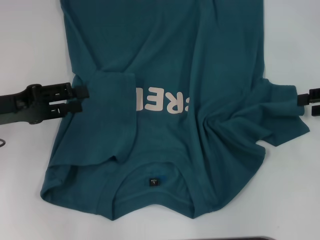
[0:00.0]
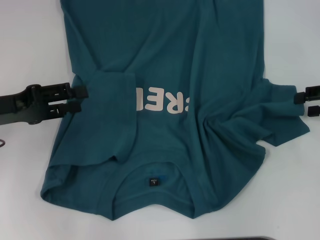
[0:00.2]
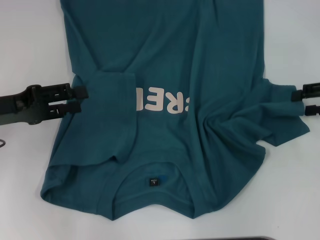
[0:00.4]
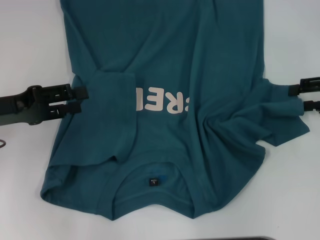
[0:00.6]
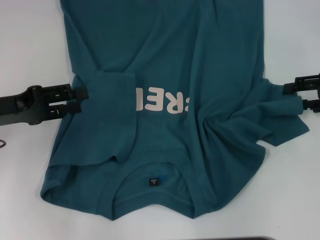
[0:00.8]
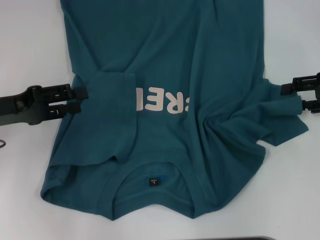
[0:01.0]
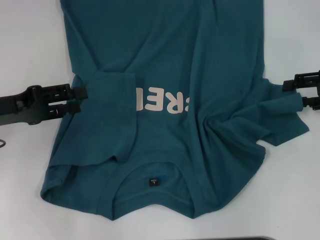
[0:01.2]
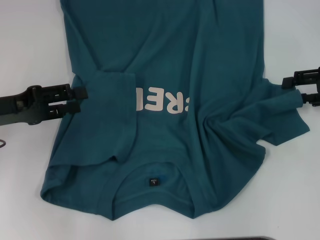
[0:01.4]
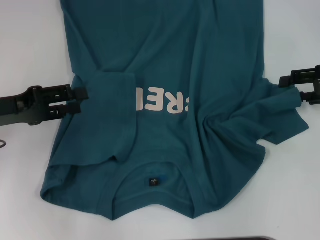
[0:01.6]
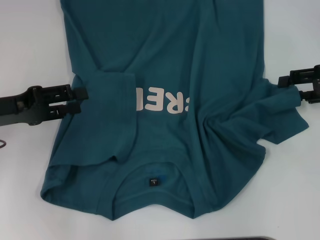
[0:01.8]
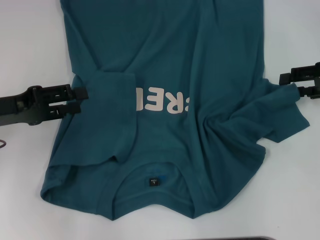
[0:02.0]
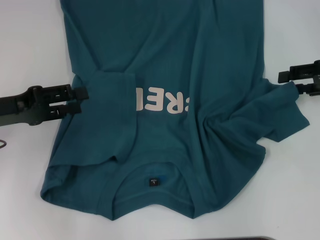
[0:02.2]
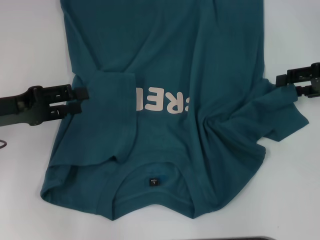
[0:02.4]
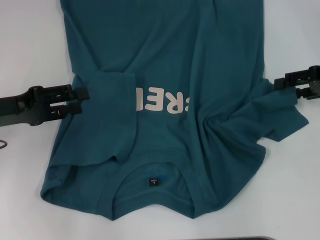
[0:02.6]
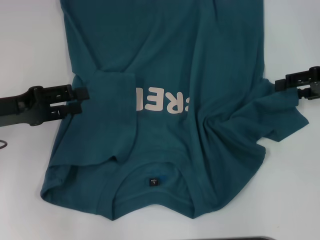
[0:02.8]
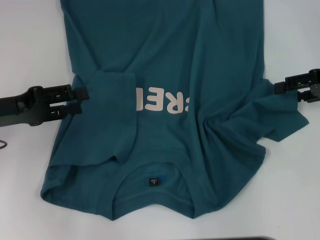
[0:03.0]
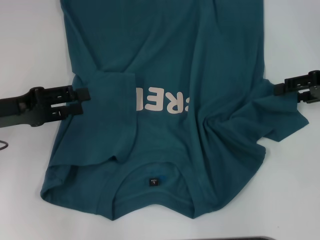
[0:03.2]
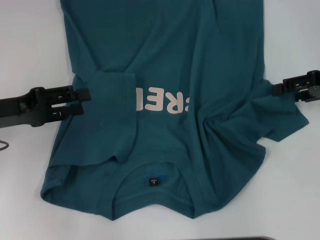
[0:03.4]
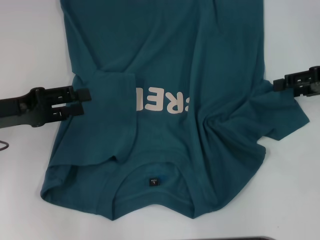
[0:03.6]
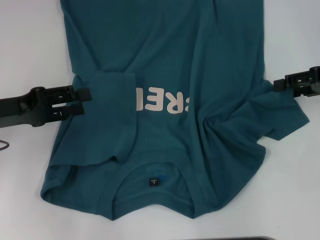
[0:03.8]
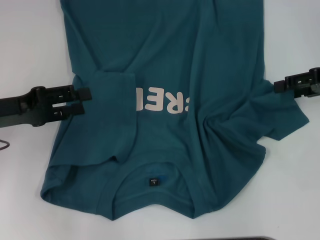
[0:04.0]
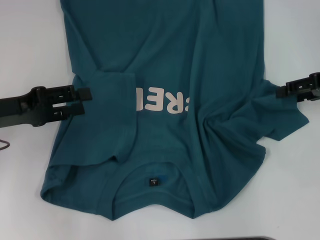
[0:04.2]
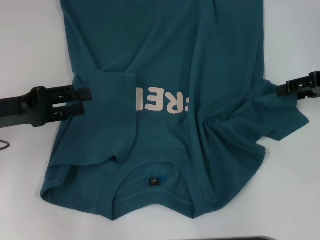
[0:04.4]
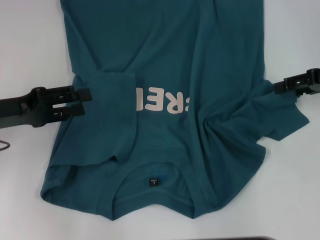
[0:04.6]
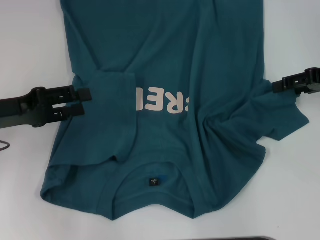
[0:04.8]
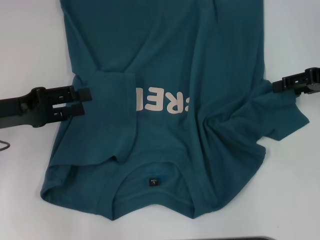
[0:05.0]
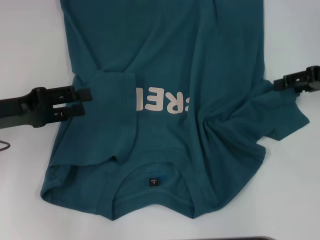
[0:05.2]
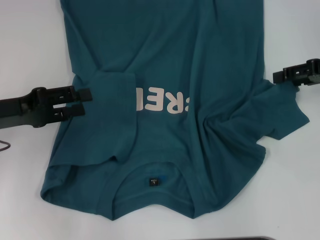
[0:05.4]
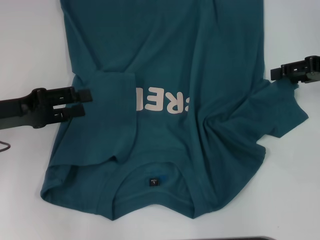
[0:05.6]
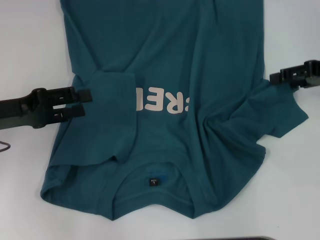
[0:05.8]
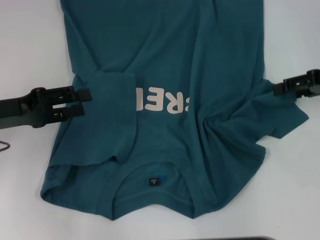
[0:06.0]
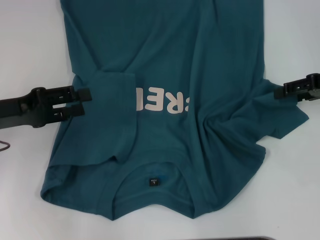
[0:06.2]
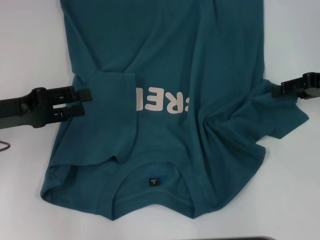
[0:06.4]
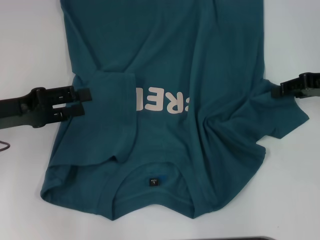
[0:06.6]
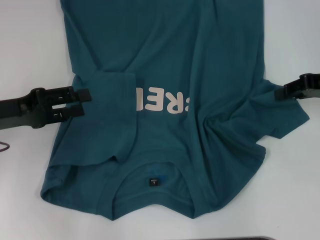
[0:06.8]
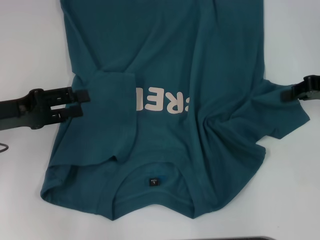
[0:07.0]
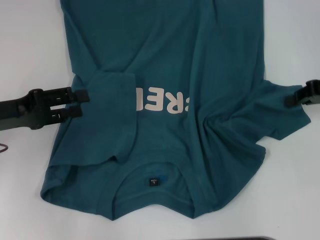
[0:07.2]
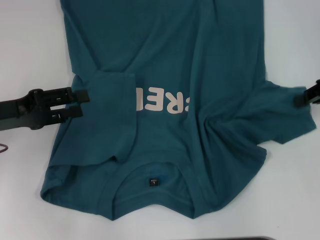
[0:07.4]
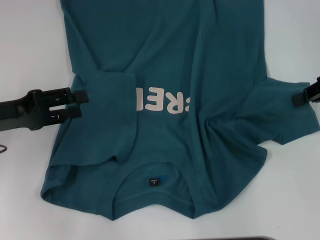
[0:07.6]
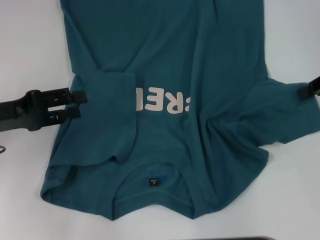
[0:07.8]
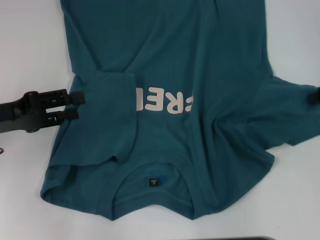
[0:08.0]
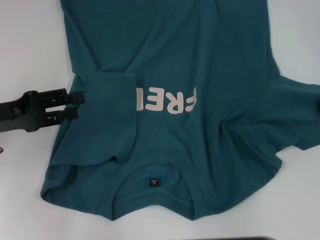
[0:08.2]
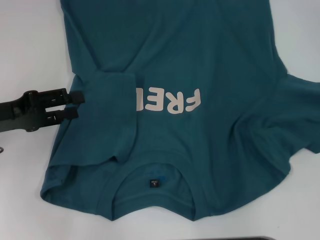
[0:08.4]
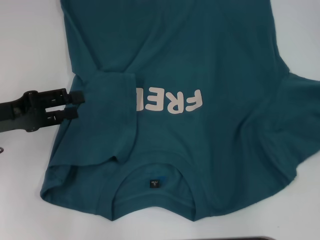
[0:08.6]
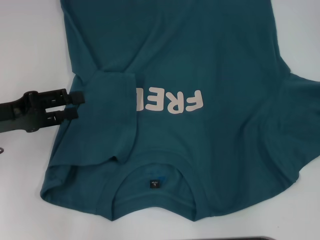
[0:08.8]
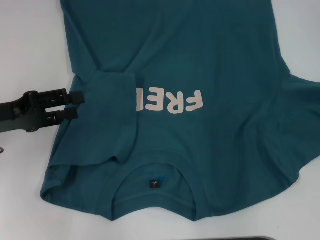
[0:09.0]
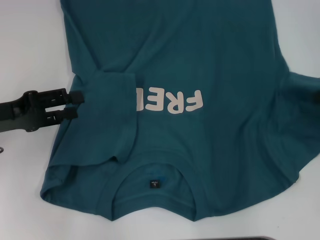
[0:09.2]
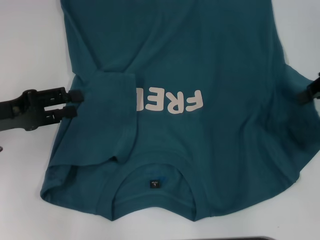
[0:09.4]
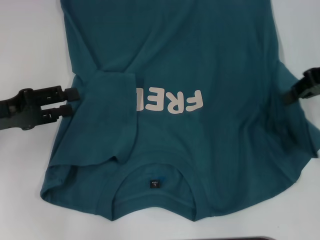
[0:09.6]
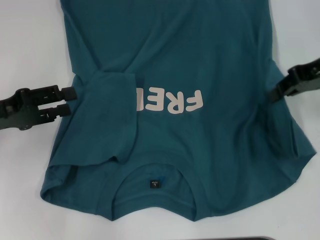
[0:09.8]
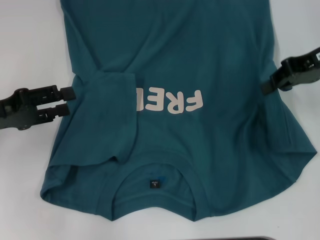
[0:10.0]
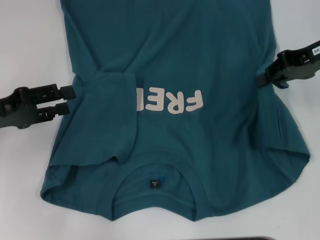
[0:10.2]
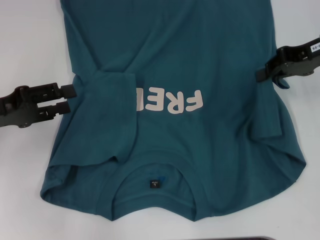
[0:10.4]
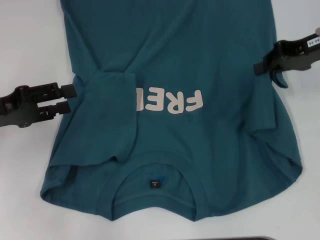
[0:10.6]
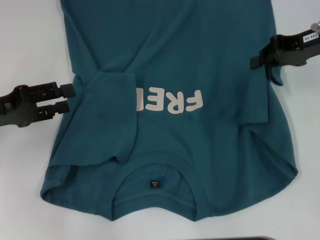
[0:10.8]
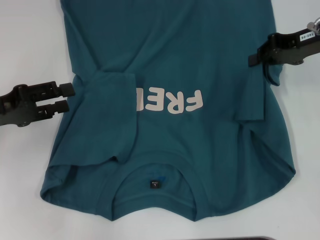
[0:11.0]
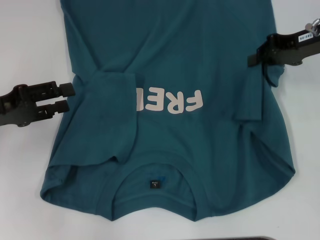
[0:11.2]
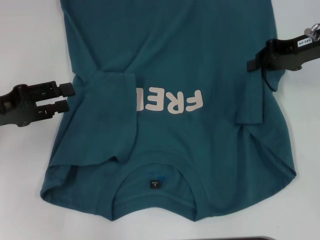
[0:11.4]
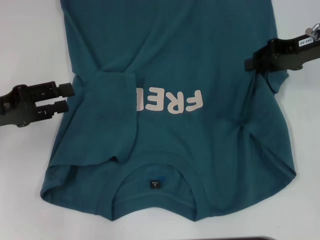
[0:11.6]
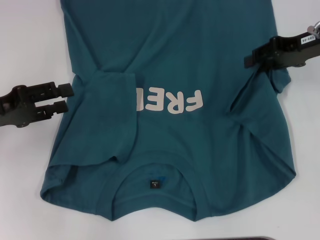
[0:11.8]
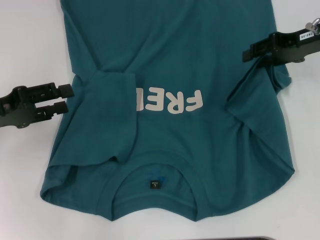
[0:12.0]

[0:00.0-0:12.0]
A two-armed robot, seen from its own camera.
0:00.0 to 0:04.4: There are only small adjustments of the grippers.
0:04.4 to 0:06.0: There are only small adjustments of the grippers.
0:06.0 to 0:07.6: The right gripper closes.
0:07.6 to 0:09.0: The grippers stay close to where they were, moving slightly.
0:09.0 to 0:10.4: The right gripper travels to the left by roughly 10 cm.
0:10.4 to 0:12.0: The right gripper opens.

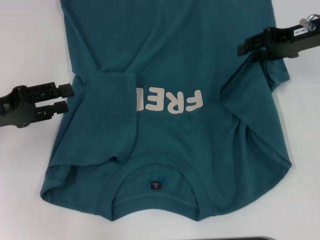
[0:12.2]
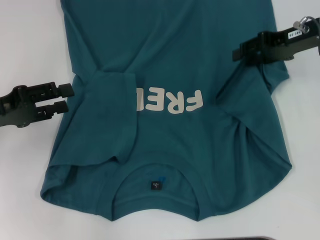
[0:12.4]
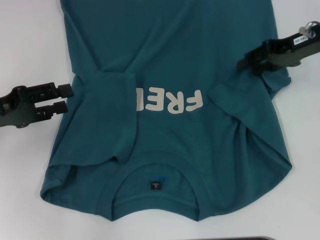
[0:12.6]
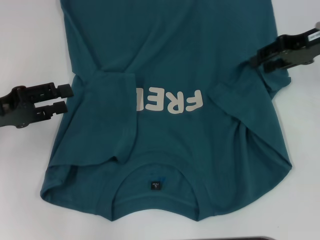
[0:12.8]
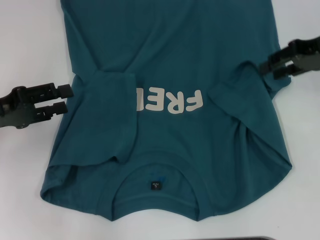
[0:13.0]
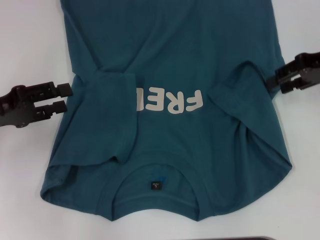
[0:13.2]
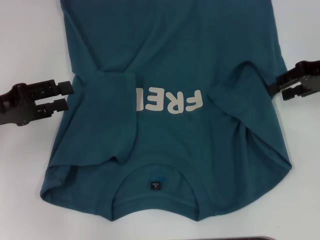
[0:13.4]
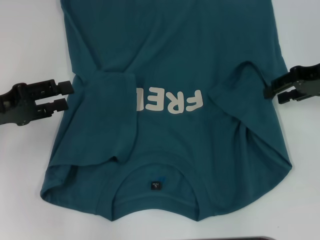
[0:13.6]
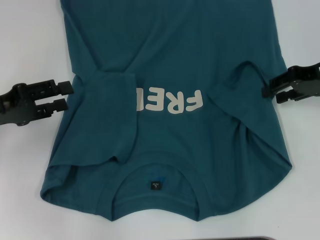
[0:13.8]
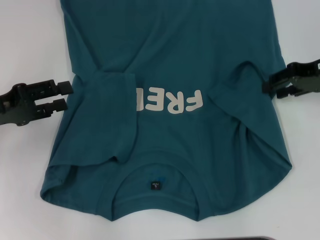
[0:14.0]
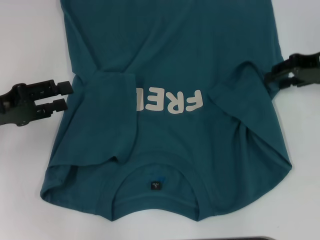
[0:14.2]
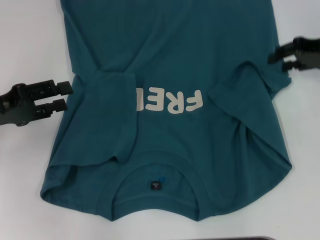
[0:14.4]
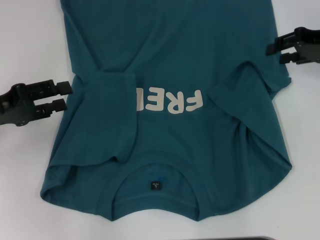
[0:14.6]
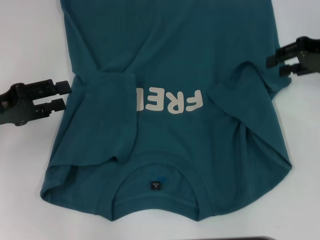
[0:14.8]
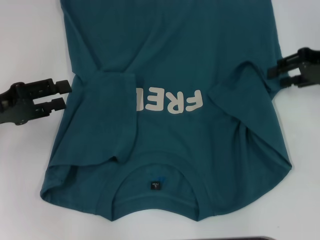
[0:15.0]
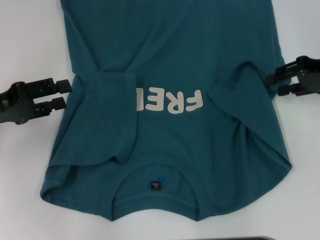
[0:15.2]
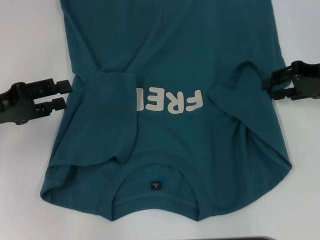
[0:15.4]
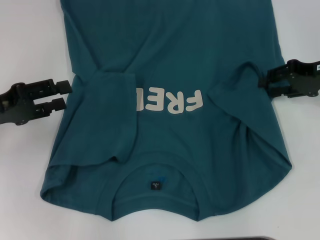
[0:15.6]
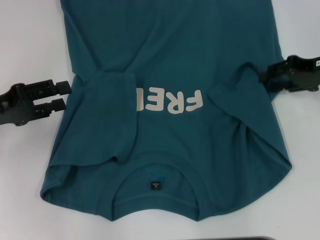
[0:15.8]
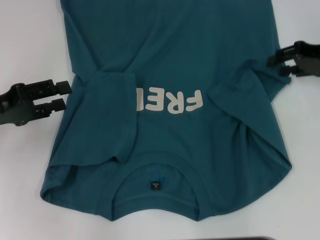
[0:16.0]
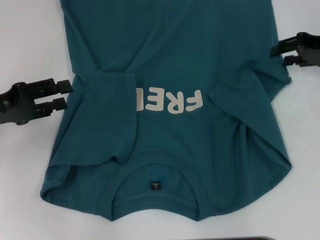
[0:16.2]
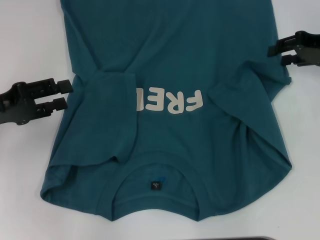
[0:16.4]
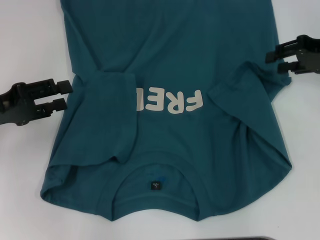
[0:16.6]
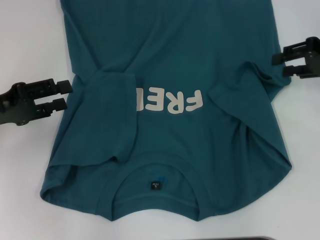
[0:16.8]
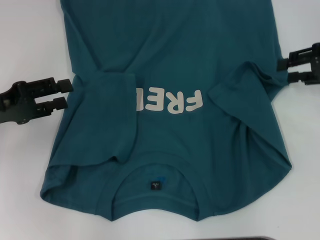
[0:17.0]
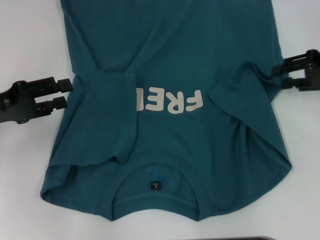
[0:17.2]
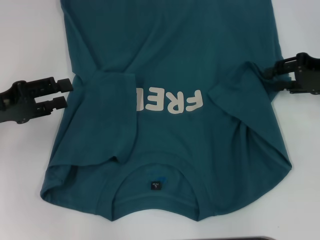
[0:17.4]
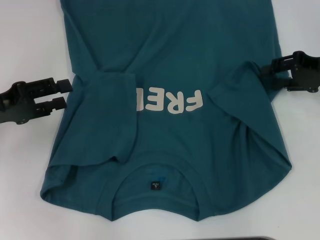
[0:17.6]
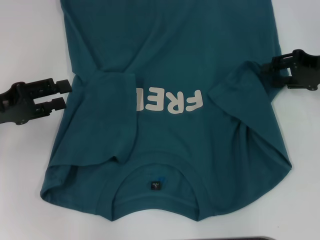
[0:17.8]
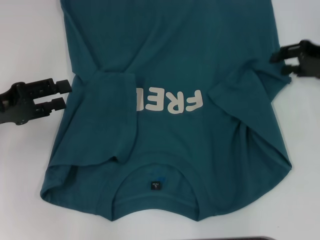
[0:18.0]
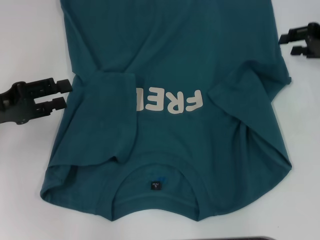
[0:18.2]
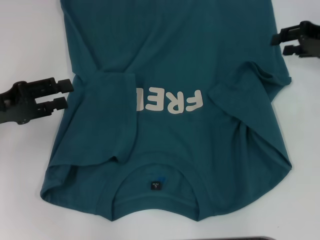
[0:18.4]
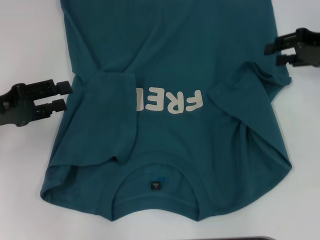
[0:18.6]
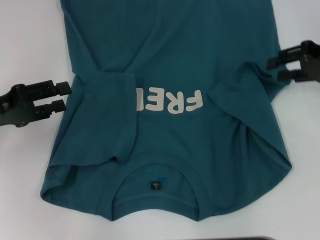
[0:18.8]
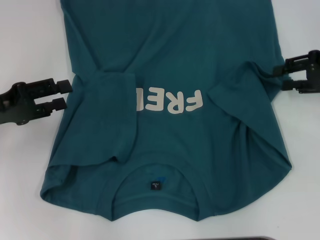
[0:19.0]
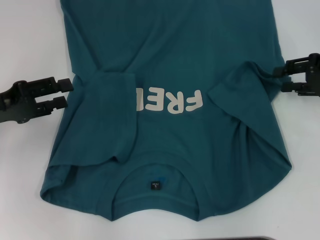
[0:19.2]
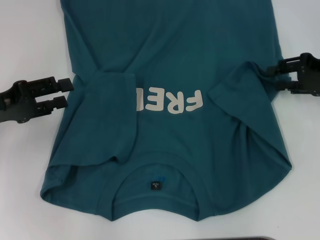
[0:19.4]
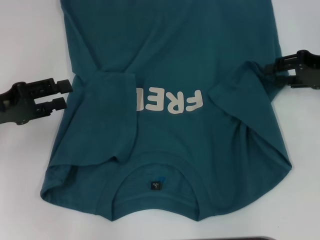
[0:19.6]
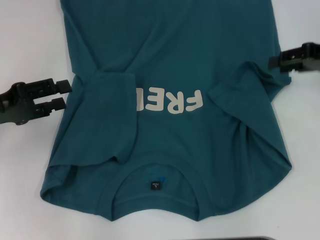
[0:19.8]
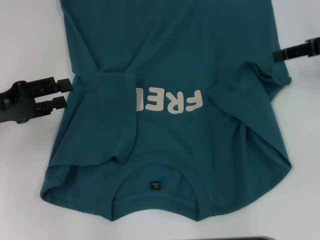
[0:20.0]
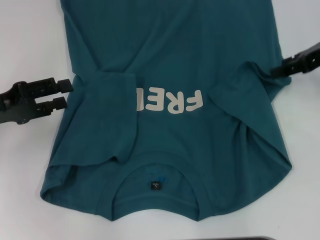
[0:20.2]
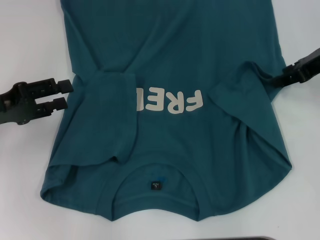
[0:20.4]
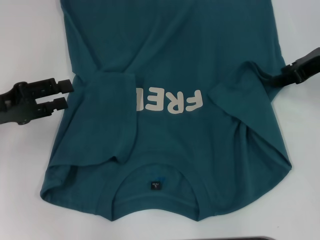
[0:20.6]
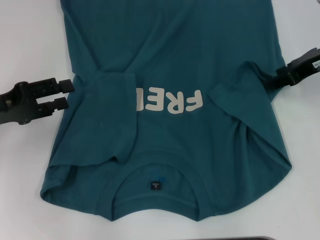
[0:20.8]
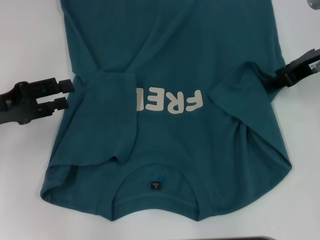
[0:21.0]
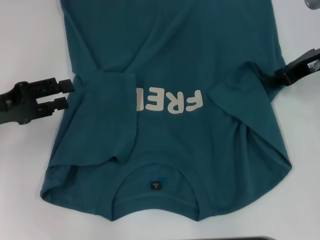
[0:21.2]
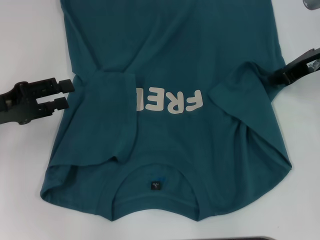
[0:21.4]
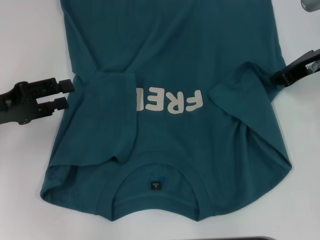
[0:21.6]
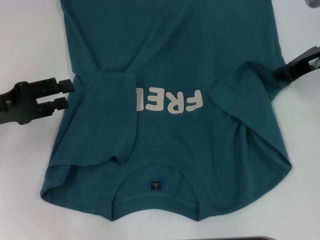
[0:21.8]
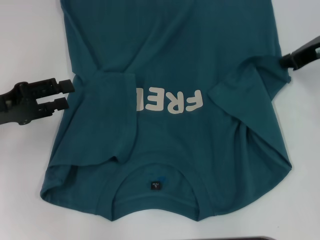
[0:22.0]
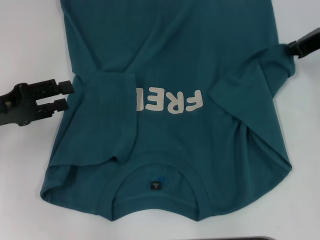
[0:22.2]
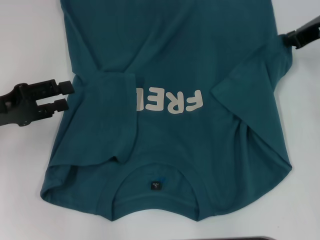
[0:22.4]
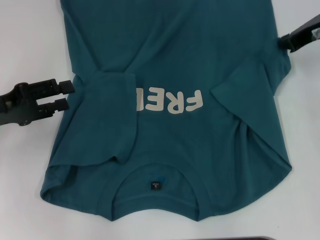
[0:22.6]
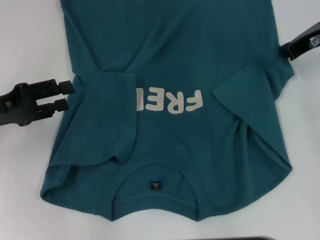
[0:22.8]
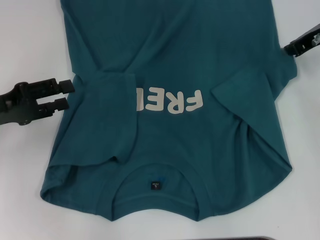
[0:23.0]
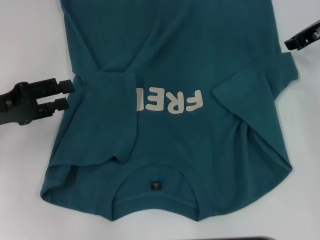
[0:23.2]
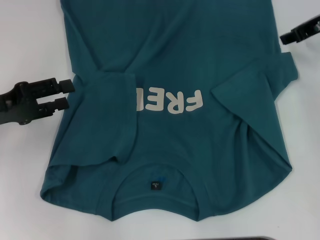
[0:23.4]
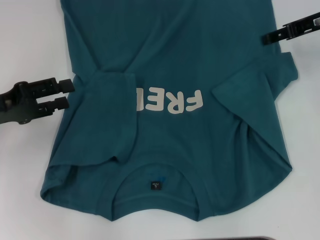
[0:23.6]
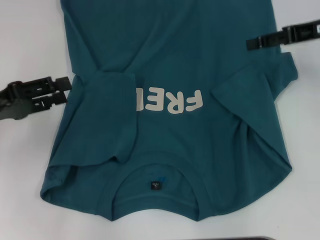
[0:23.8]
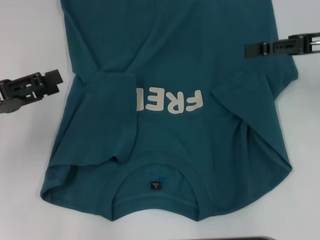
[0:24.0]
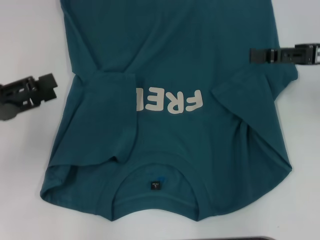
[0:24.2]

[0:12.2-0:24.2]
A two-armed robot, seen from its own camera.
Step, 0:12.2 to 0:24.2: Fold the bottom right sleeve to the right.
0:12.2 to 0:13.8: The grippers move only a little.
0:13.8 to 0:16.6: The grippers make only small movements.
0:16.6 to 0:18.2: The grippers make only small movements.
0:19.8 to 0:21.2: The right gripper shifts about 5 cm to the left.
0:21.2 to 0:22.6: The right gripper closes.
0:22.6 to 0:24.2: The right gripper moves backward, about 10 cm, and opens its fingers.
